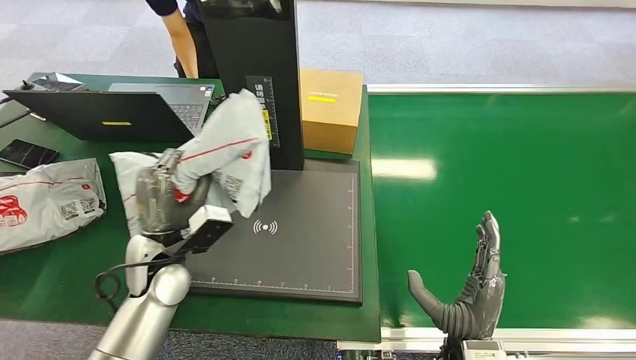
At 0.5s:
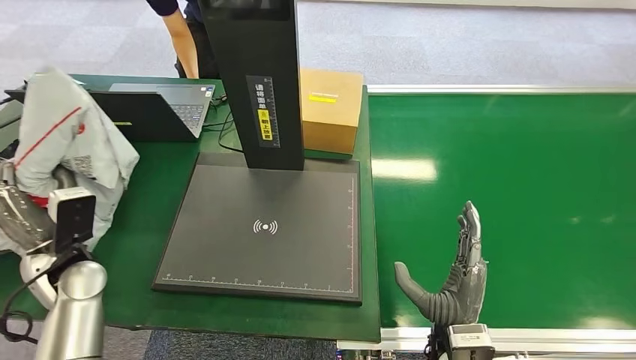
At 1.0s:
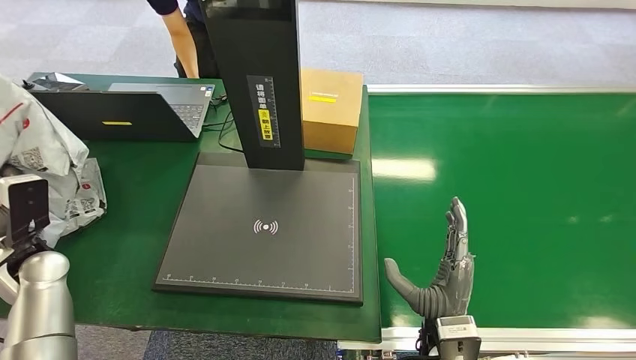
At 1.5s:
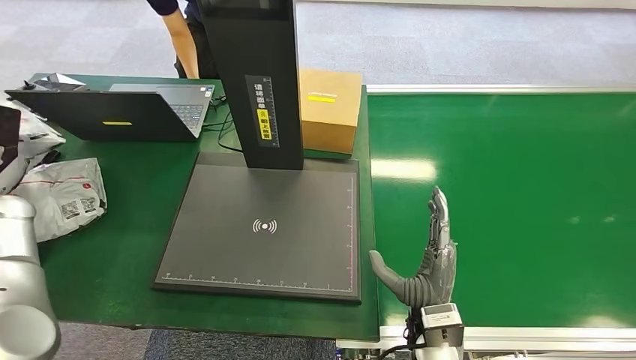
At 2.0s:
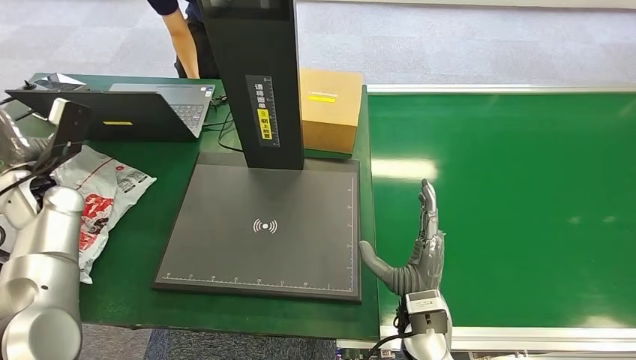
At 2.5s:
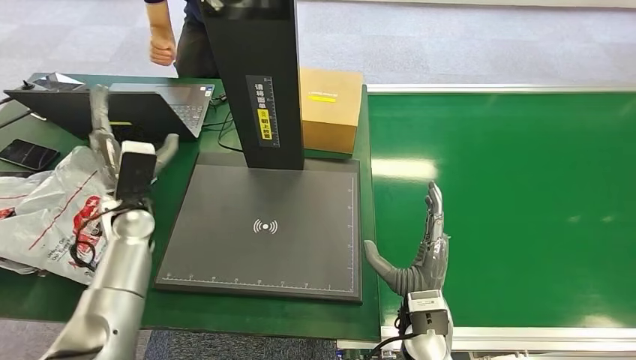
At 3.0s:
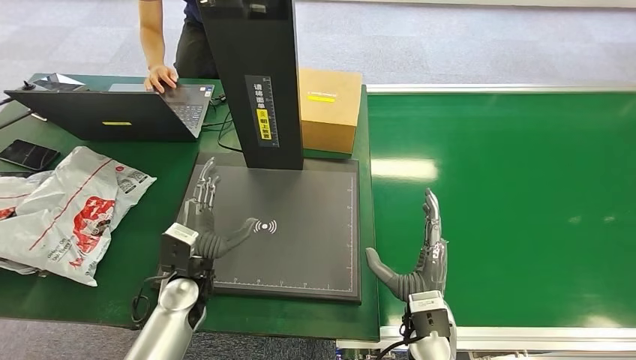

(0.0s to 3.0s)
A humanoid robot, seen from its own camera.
Step, 1.0s - 3.0s: Place the package into the parcel locker.
1.5s - 3.0s: The left hand moves to the right and downward, some 35 cm.
